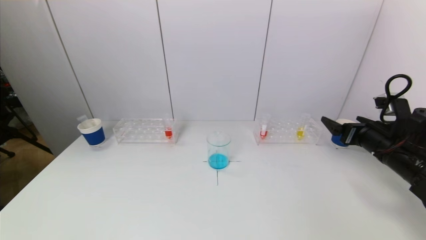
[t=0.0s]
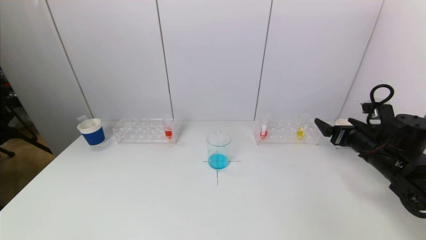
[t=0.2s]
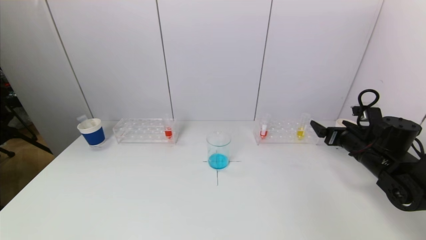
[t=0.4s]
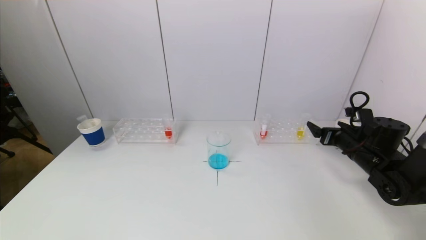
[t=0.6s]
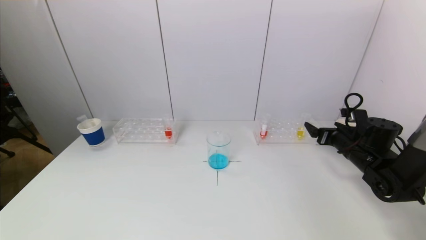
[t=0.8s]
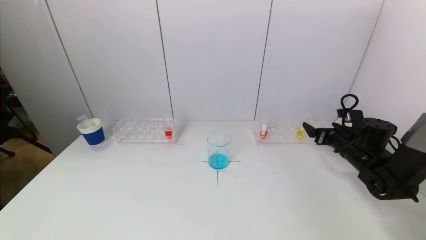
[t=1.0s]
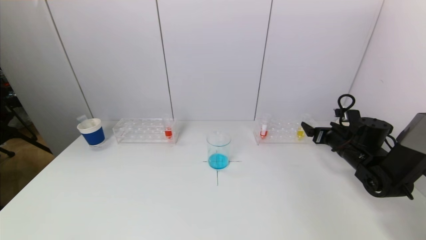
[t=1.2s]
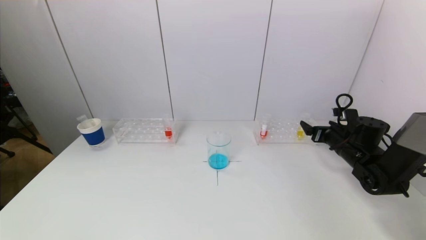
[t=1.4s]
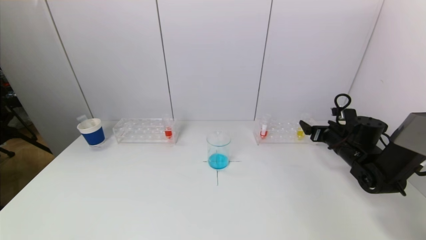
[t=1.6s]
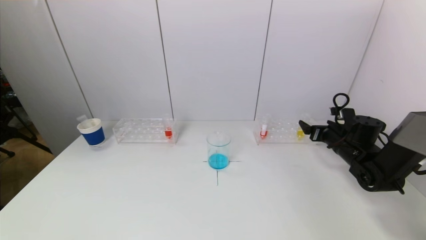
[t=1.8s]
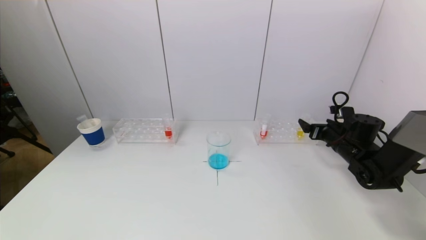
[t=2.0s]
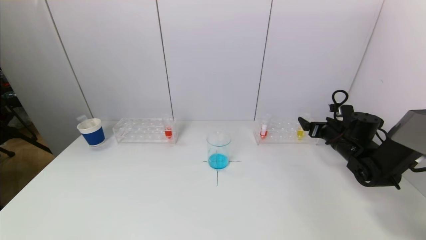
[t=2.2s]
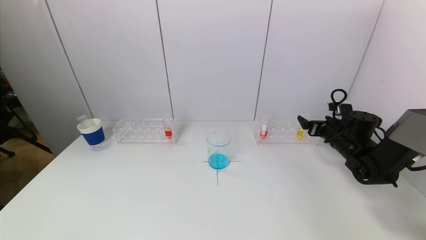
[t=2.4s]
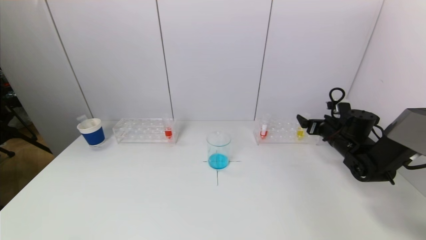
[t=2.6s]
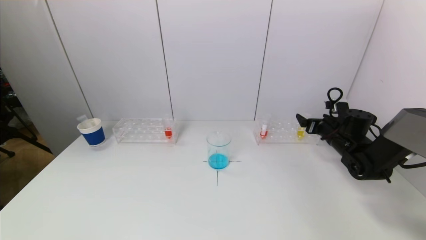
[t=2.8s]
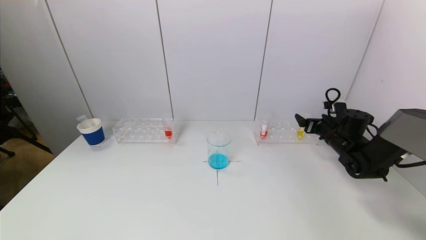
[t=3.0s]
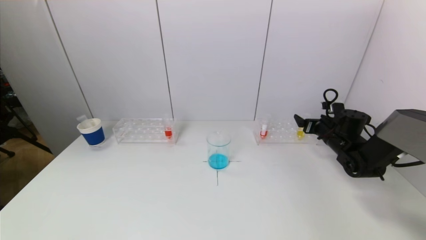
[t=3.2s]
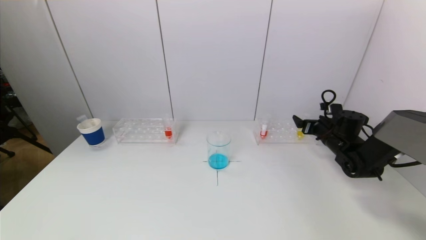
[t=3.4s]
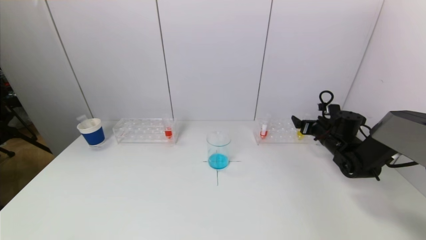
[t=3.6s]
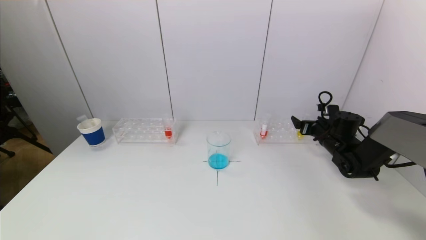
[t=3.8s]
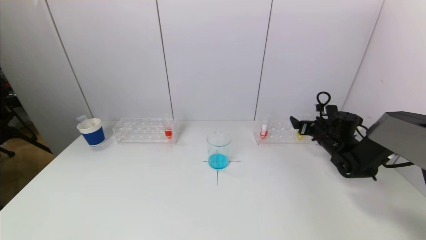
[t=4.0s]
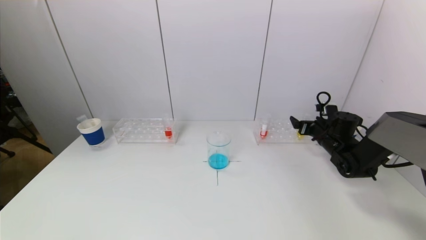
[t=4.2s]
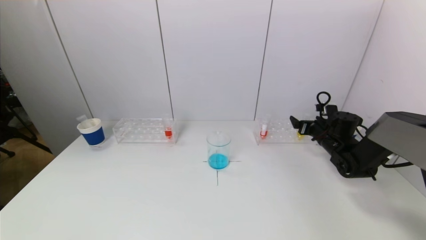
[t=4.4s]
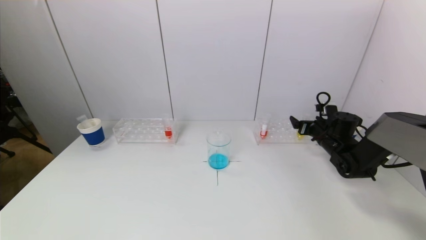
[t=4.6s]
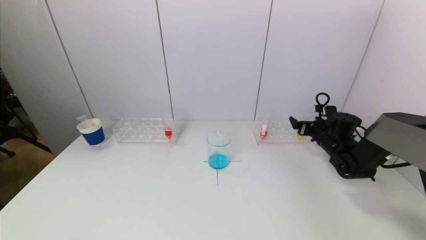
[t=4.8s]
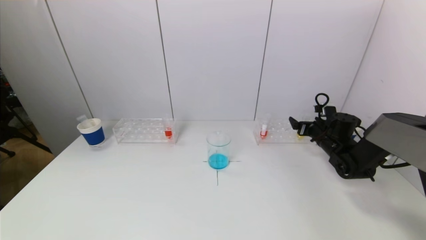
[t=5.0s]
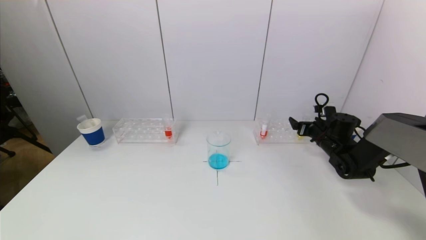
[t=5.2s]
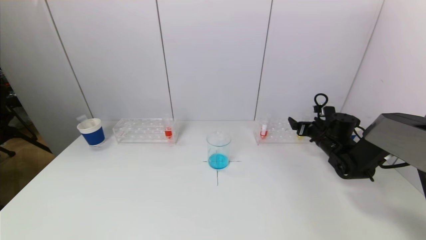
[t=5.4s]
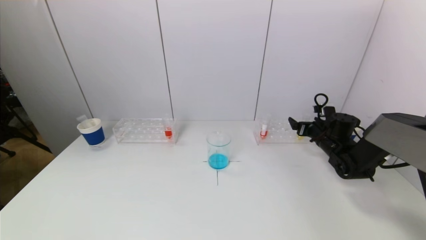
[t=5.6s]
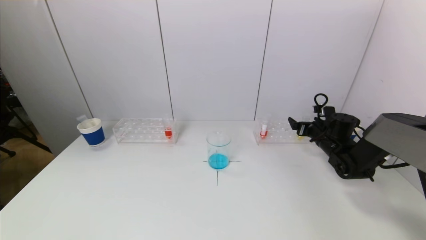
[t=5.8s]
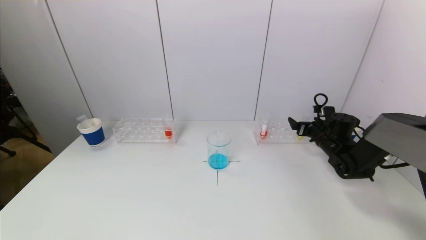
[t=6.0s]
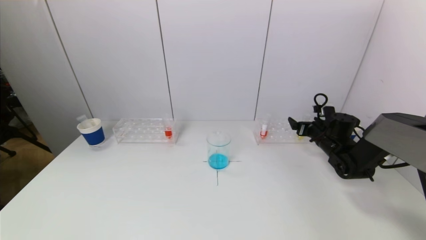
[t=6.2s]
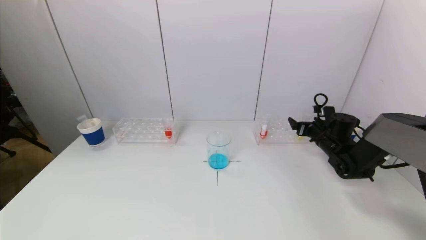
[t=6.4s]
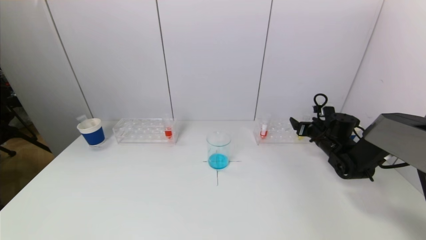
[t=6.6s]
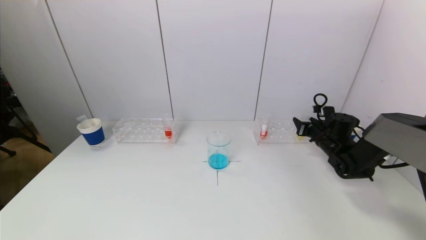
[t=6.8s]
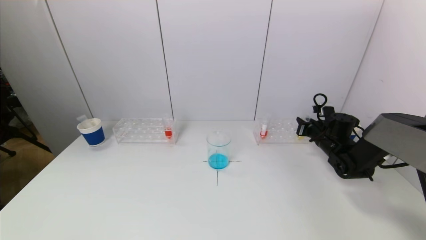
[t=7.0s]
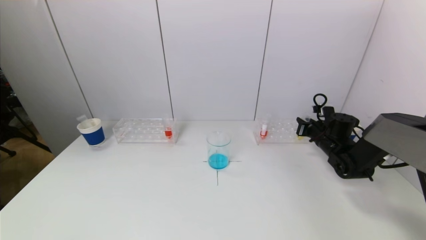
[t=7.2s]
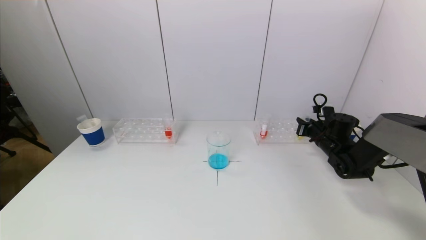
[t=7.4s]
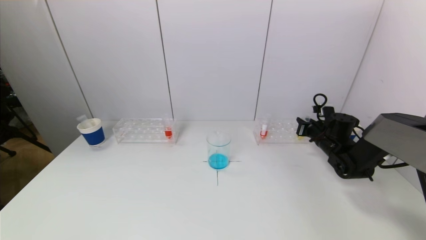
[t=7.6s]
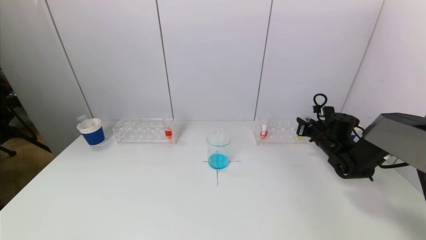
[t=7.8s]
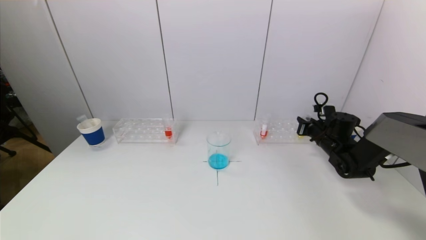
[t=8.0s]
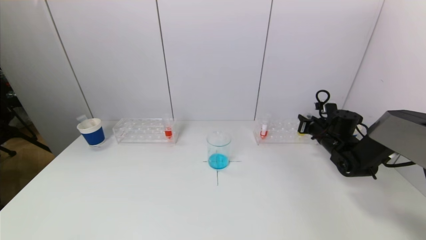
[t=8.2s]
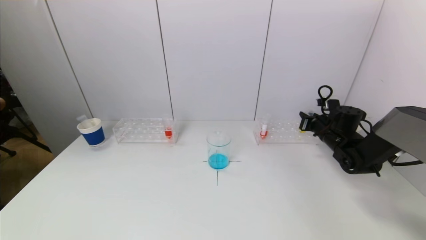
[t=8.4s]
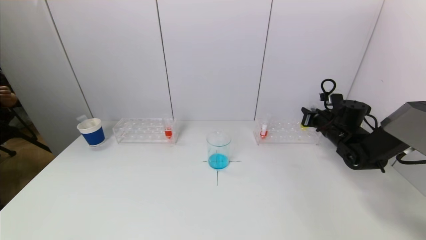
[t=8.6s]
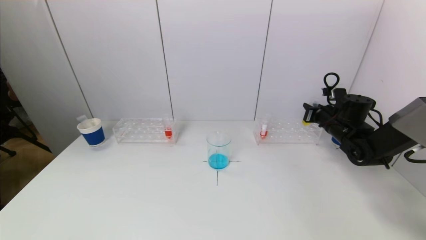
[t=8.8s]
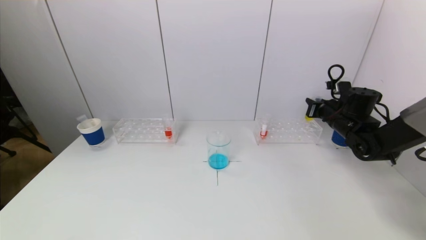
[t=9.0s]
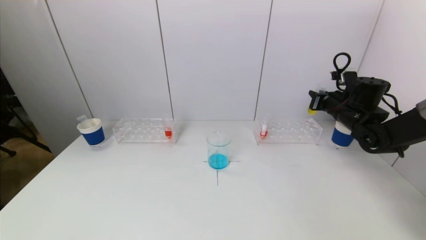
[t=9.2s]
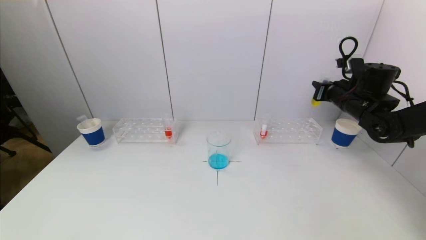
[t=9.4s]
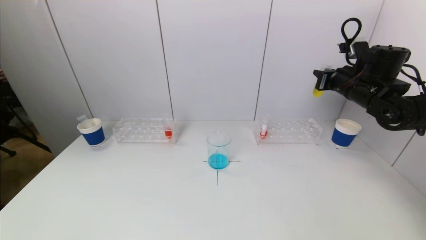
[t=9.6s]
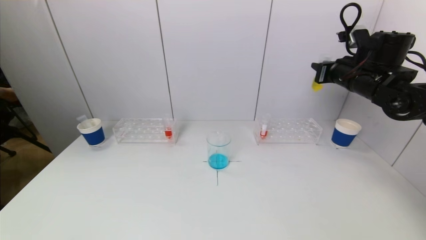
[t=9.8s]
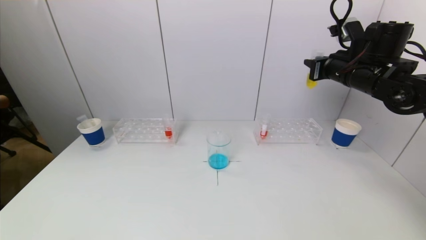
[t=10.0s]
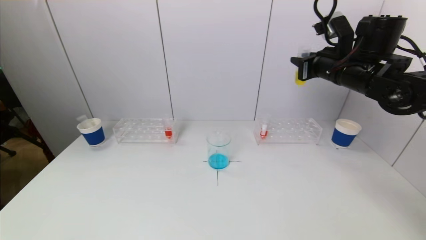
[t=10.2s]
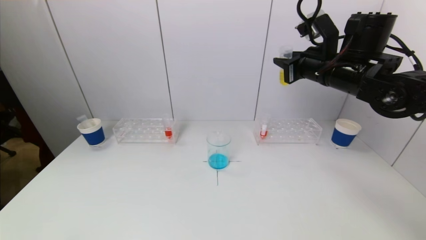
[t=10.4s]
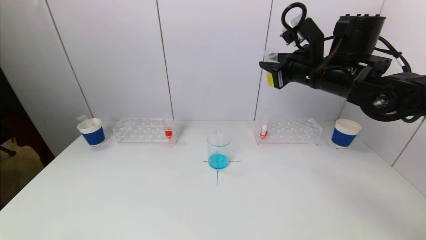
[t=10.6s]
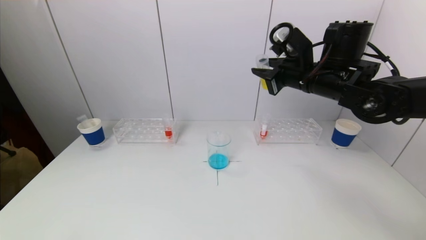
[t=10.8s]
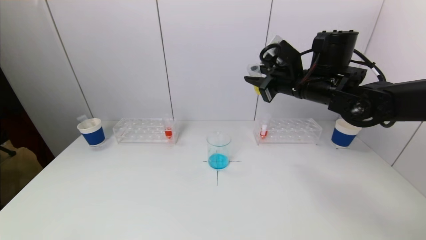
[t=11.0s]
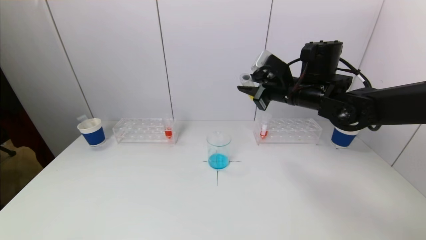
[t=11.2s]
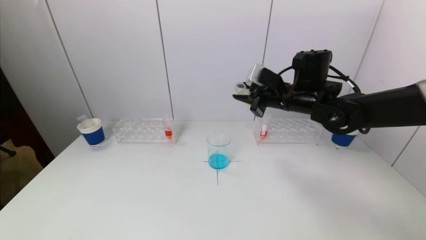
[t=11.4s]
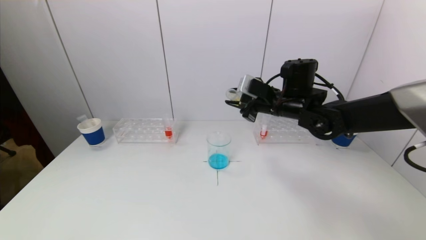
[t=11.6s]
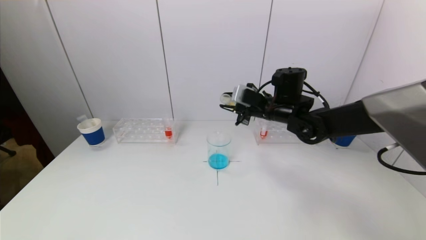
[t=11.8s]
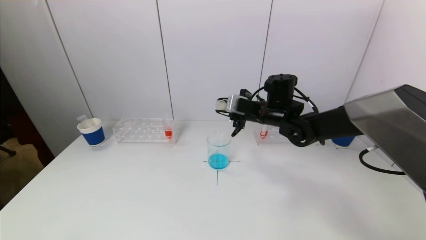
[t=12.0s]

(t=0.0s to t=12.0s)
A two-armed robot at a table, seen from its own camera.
Task of the whole recording: pick up a test tube with pigment on left test tube rack and a test tube with pigment on right test tube rack by grippers and pour them into the beaker.
Step, t=0.0s - t=7.0s: Grasp the yellow reagent with the right gripper.
t=0.0s - t=1.6s: The right gripper moves forward and downward, some 15 cm.
t=1.6s - t=4.4s: There are only small adjustments of the grippers.
t=4.4s - t=6.0s: Both grippers stay put.
t=7.6s - t=9.0s: The right gripper heads upward, covering roughly 10 cm.
t=9.0s - t=10.4s: The right gripper travels upward, to the left and backward by approximately 20 cm.
t=10.4s - t=12.0s: The right gripper goes roughly 15 cm downward, to the left and forward.

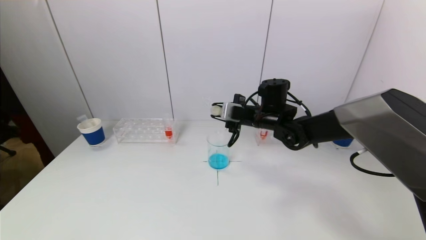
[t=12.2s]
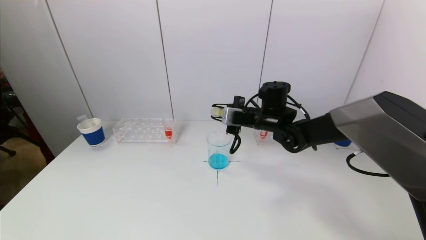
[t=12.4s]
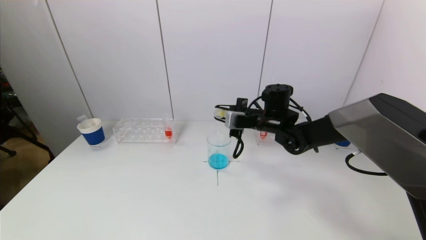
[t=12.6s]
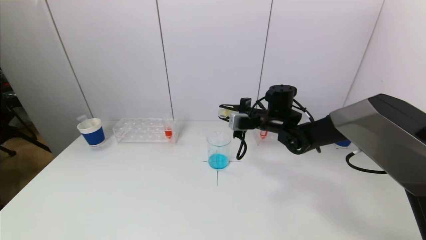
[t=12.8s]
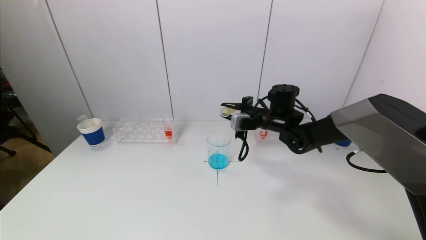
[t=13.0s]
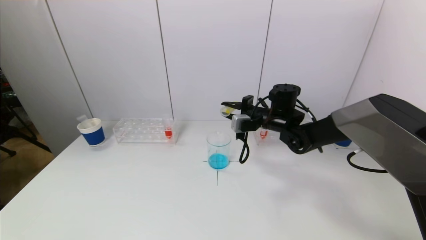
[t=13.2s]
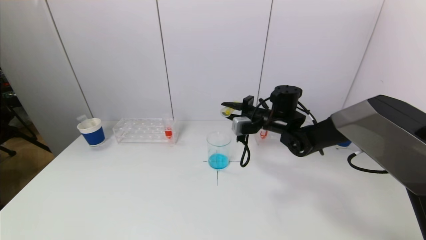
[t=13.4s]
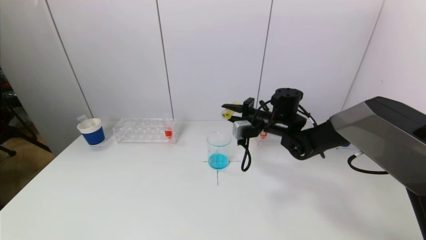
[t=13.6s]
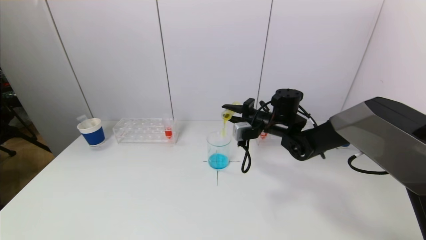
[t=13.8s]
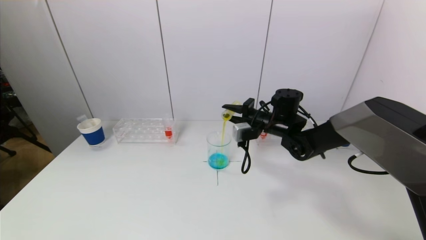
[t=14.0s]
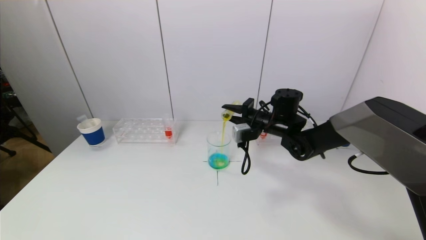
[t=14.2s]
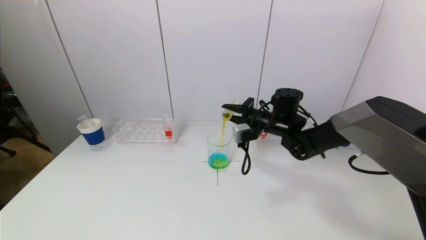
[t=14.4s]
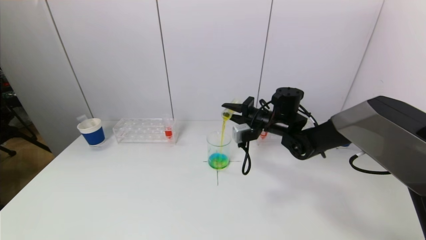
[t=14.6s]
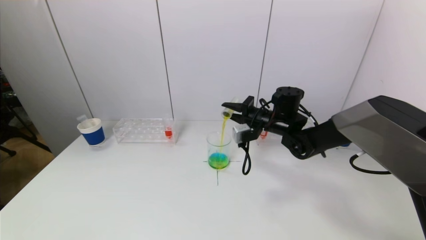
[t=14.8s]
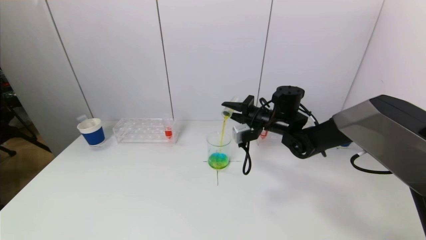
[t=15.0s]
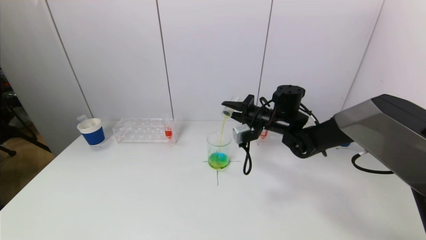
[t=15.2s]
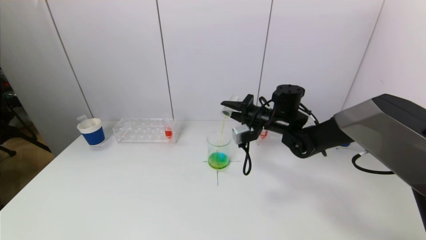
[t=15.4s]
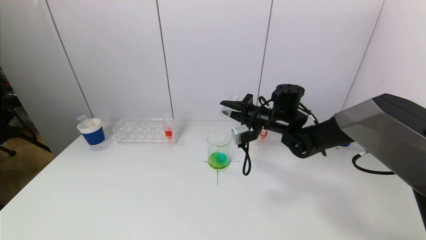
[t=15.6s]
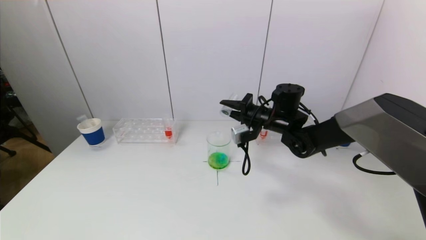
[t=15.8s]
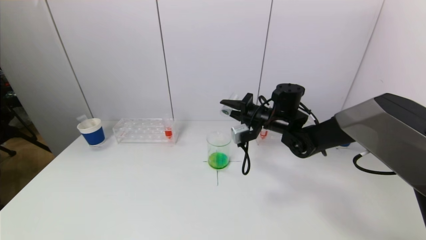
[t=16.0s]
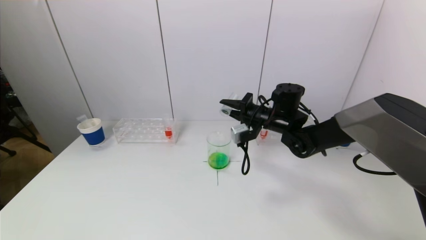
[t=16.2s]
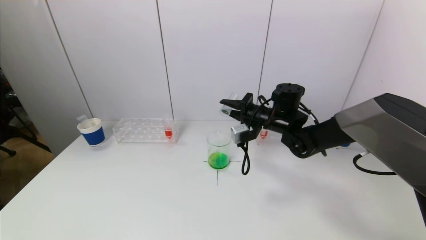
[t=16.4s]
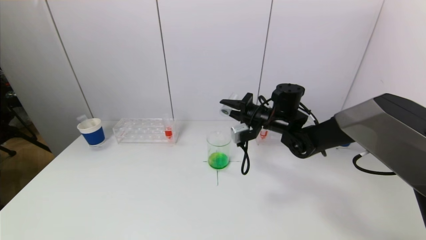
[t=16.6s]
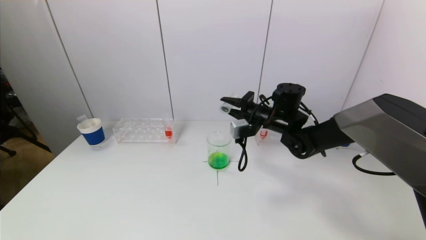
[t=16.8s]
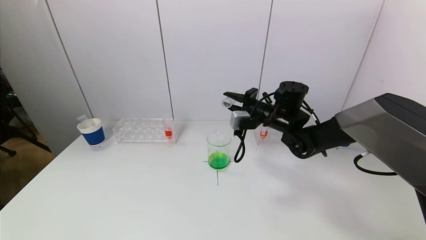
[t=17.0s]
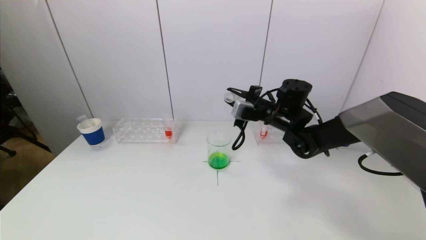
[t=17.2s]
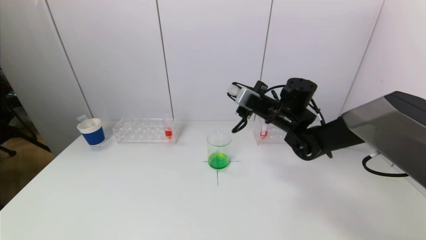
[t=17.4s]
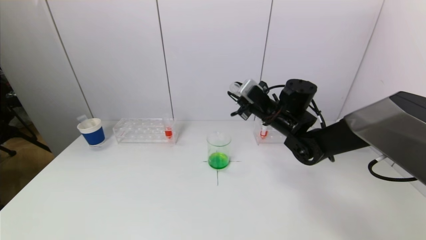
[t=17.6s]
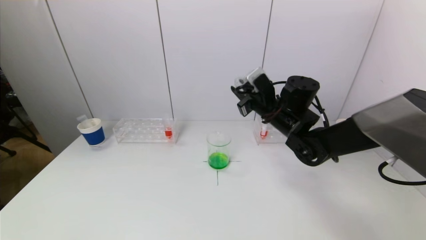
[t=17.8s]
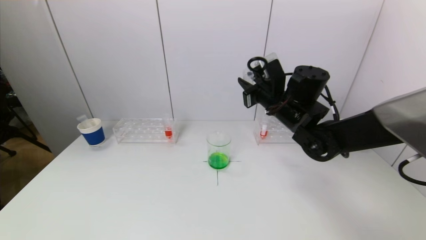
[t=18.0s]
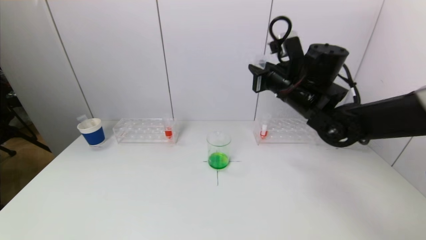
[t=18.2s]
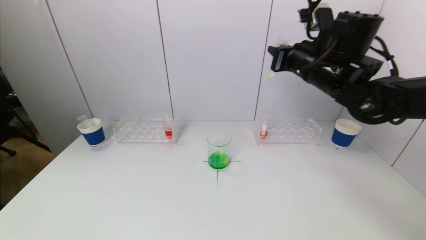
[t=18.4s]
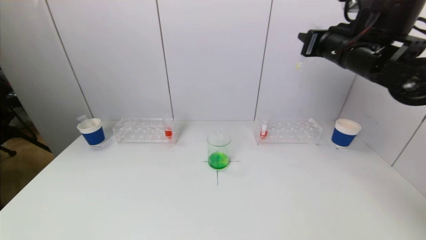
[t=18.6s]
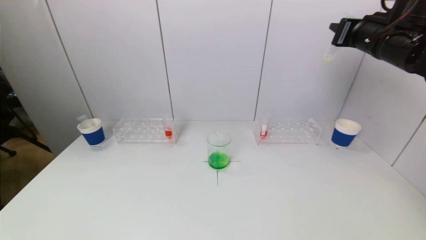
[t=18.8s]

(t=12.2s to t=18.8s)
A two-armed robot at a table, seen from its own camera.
Task of the whole recording: pick up a test tube with pigment on left test tube rack and a test tube with pigment on right test tube rack by grippers and pour them into the beaker.
Step, t=12.2s - t=16.0s: Pour the yellow reagent into the graduated cylinder with the right gripper.
t=13.8s - t=15.4s: There are only small adjustments of the grippers.
t=17.2s - t=18.8s: The right gripper goes some 25 cm upward and to the right.
